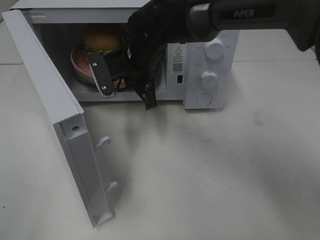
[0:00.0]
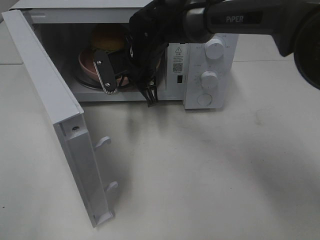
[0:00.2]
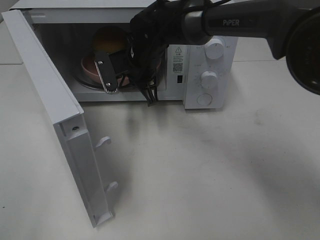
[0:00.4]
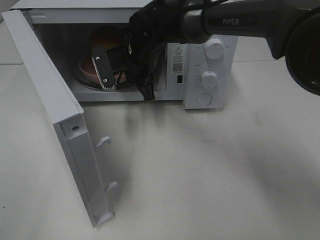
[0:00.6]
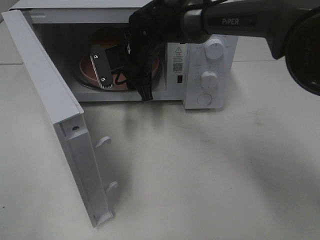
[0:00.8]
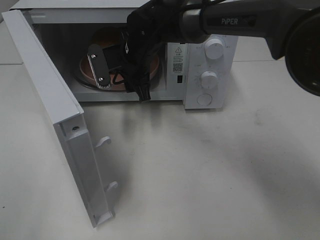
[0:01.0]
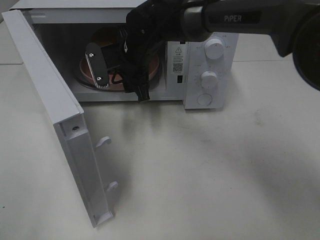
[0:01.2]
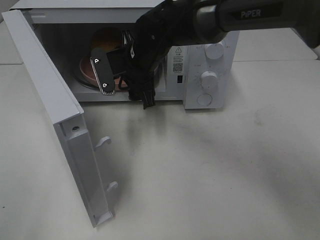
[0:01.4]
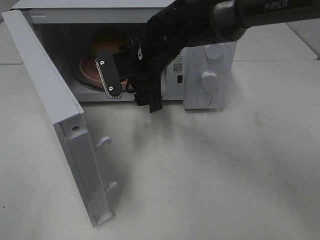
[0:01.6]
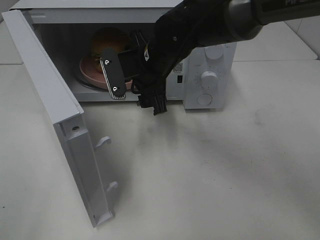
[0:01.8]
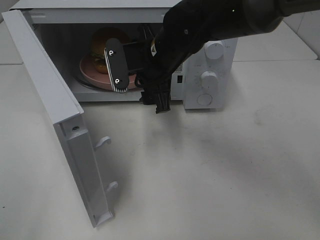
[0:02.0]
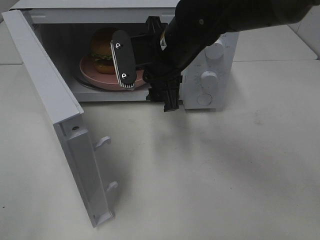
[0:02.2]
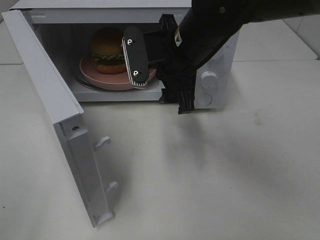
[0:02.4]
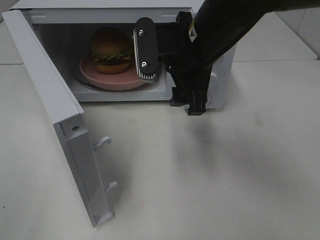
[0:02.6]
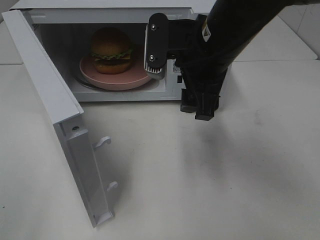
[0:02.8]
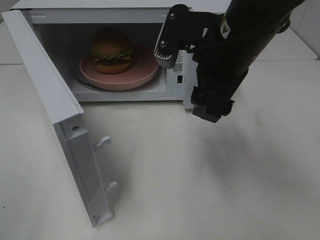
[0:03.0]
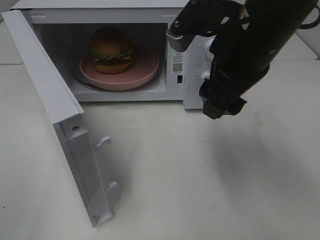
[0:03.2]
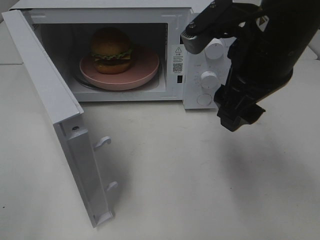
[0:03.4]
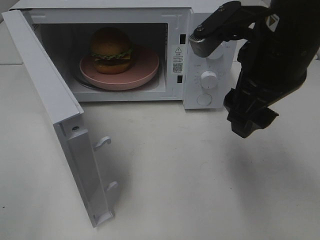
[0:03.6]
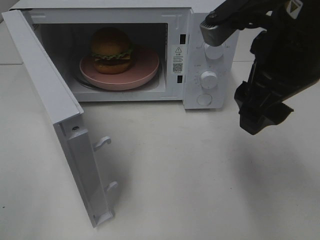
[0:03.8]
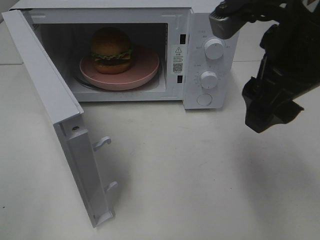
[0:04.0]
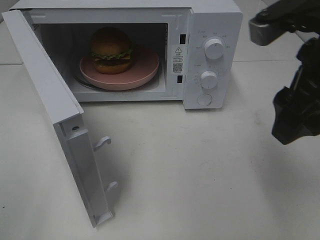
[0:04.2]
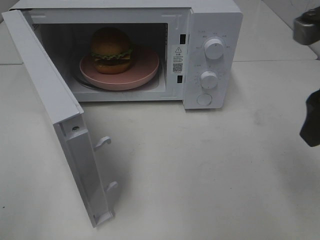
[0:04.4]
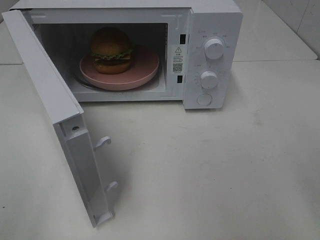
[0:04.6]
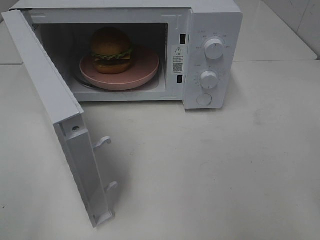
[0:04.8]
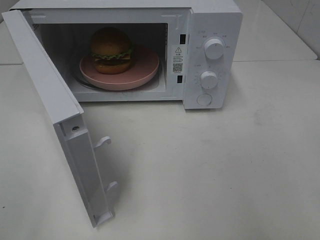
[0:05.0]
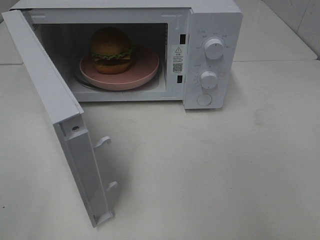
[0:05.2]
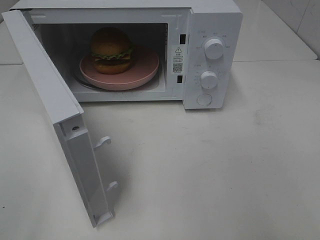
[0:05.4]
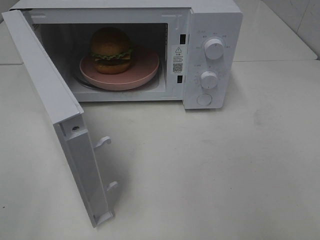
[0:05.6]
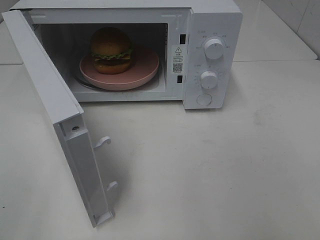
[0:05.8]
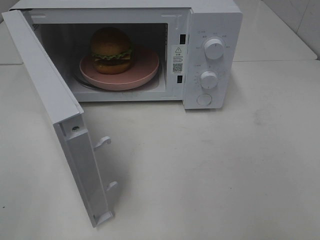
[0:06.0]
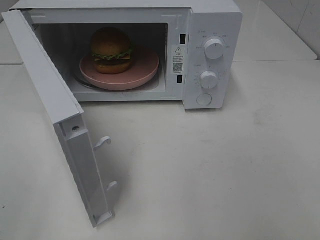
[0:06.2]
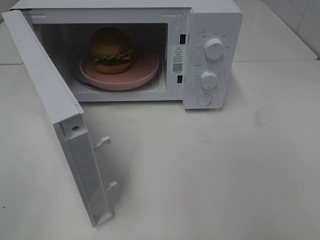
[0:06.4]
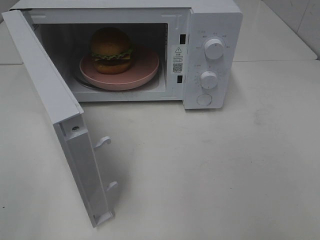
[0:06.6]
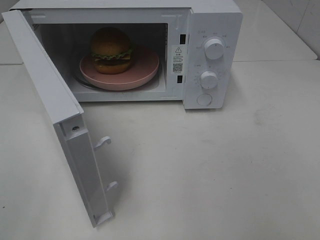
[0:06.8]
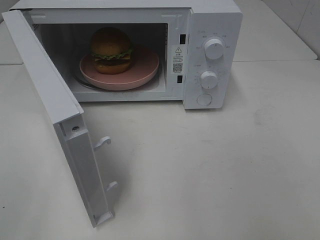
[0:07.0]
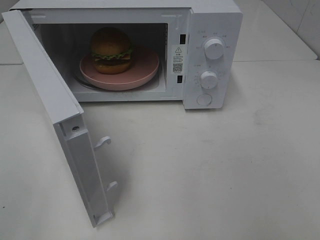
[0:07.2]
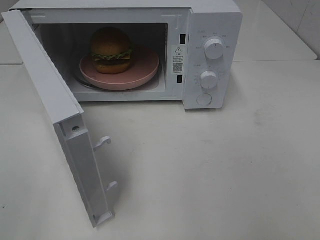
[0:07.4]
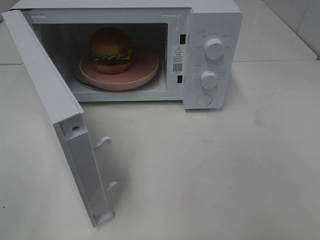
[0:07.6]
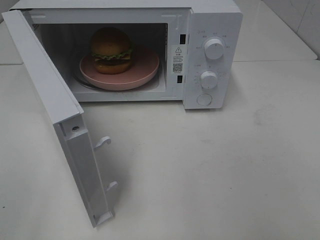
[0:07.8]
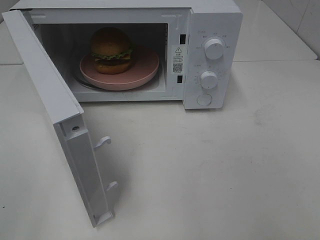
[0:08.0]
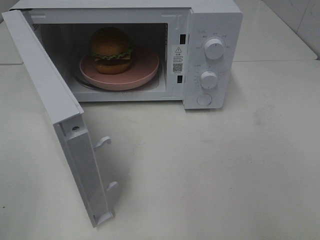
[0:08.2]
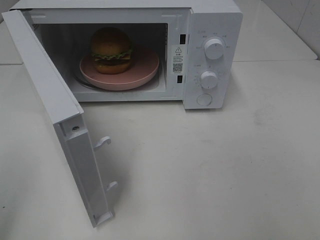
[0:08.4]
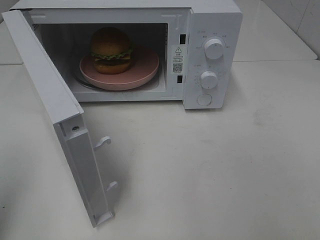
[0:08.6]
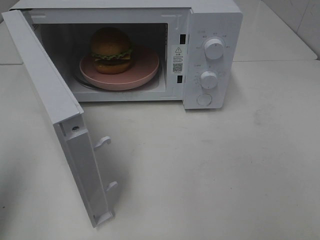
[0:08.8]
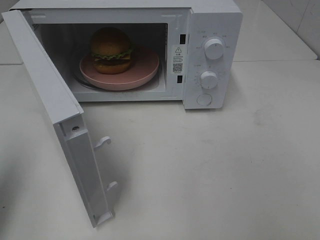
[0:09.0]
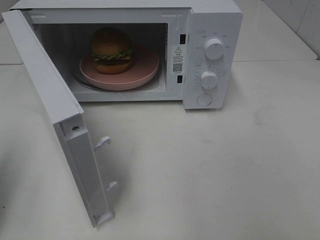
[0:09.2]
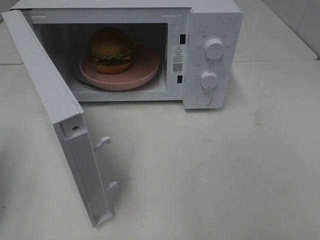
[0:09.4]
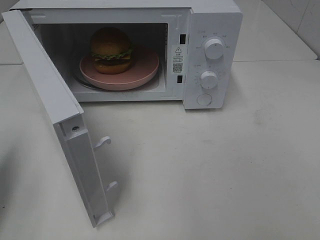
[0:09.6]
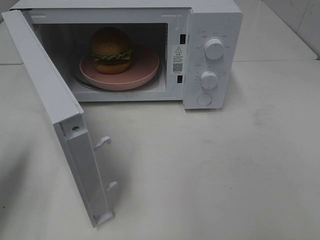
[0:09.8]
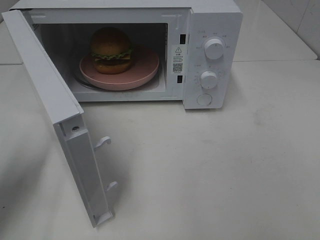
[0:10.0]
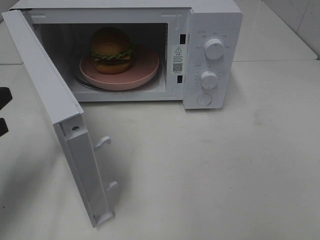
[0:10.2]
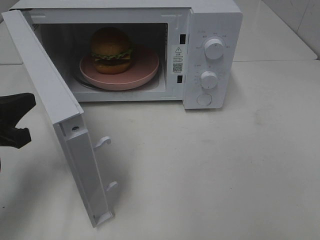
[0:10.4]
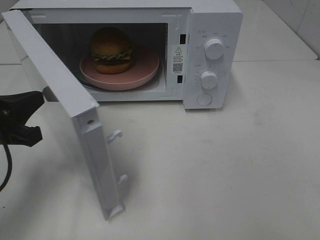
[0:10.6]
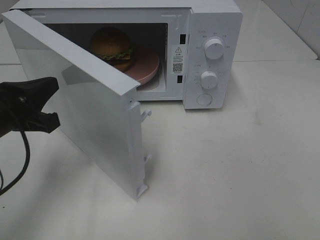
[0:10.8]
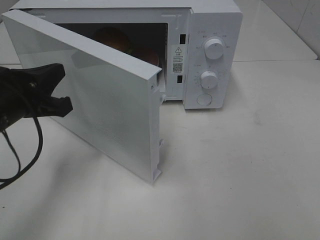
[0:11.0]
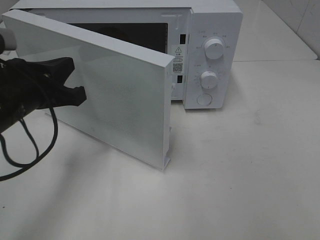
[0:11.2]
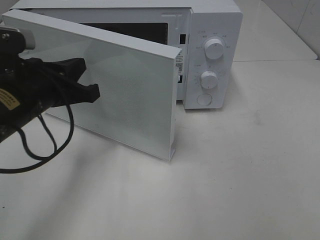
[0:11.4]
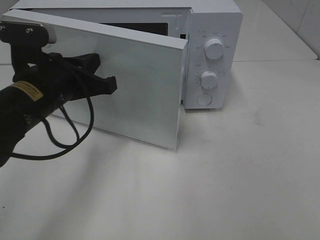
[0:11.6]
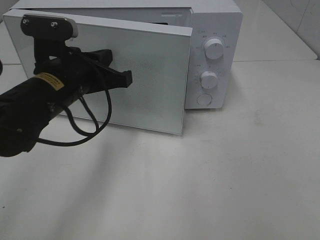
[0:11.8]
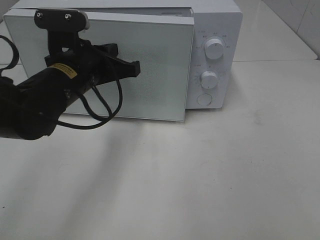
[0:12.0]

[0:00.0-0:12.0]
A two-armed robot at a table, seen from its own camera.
Task of the whole recording: Heat the burger.
0:00.0 to 0:01.6: The right gripper opens its fingers.
0:01.6 to 0:03.0: The right gripper travels backward, to the right and upward by approximately 15 cm.
0:03.0 to 0:04.4: The right gripper moves to the right and backward, some 15 cm.
0:04.4 to 0:06.0: The right gripper goes about 20 cm backward.
0:06.0 to 0:07.6: The two grippers keep their place.
0:07.6 to 0:09.0: The left gripper travels forward by some 15 cm, and closes its fingers.
0:09.0 to 0:10.4: The left gripper heads downward, forward and to the right, covering roughly 15 cm.
0:10.4 to 0:12.0: The left gripper heads to the right and forward, covering approximately 15 cm.

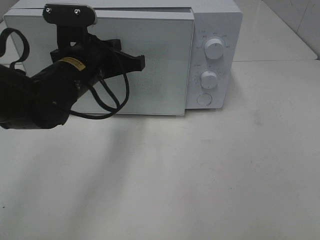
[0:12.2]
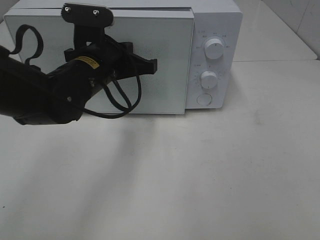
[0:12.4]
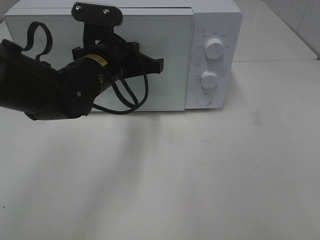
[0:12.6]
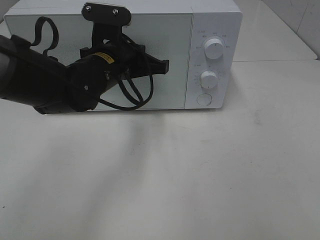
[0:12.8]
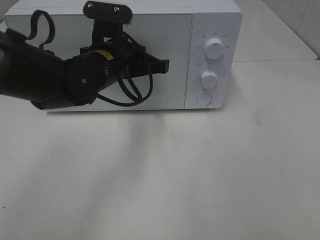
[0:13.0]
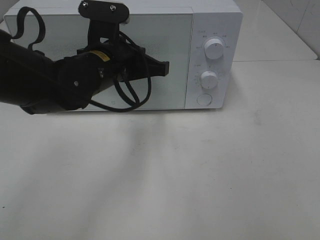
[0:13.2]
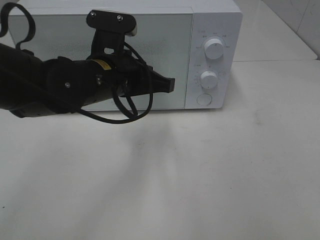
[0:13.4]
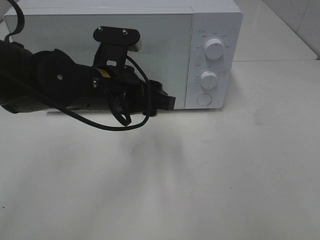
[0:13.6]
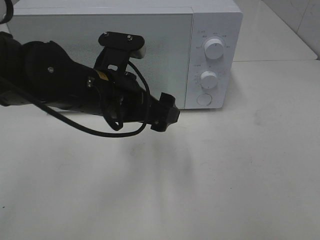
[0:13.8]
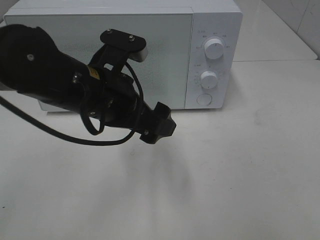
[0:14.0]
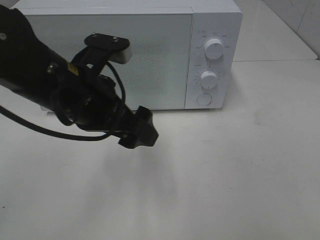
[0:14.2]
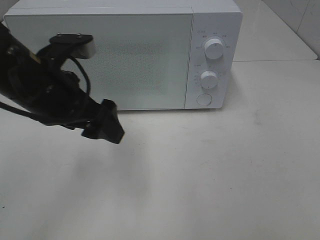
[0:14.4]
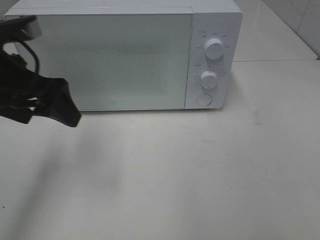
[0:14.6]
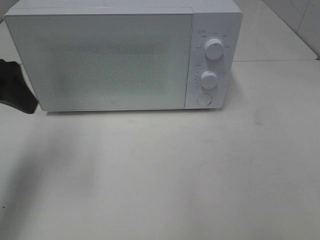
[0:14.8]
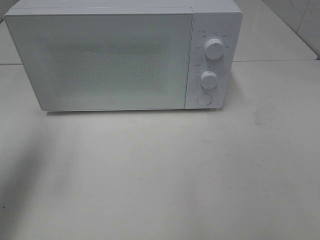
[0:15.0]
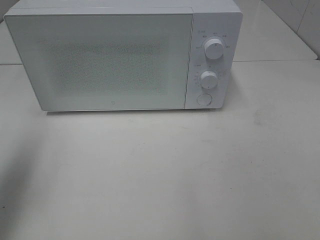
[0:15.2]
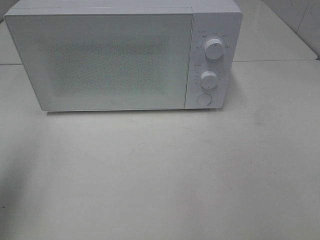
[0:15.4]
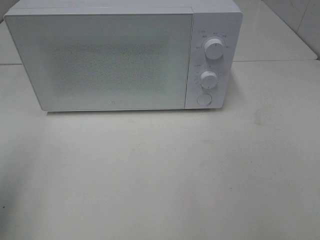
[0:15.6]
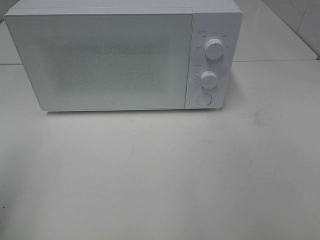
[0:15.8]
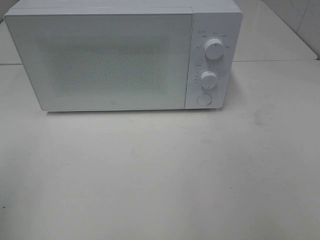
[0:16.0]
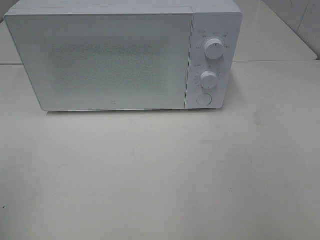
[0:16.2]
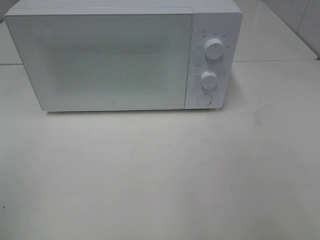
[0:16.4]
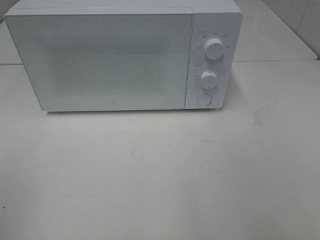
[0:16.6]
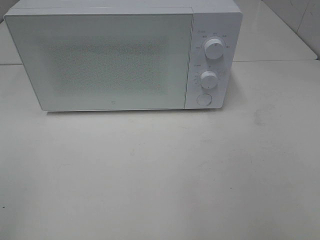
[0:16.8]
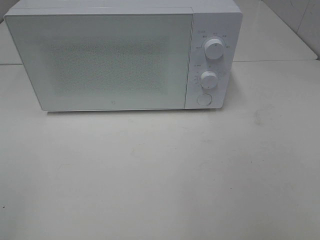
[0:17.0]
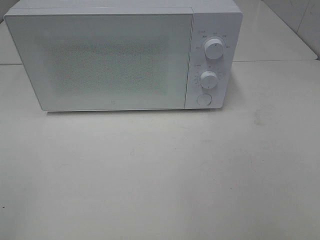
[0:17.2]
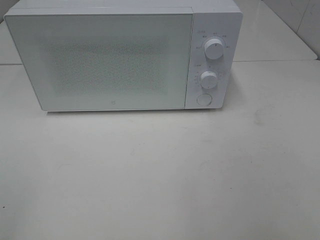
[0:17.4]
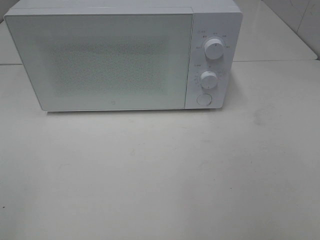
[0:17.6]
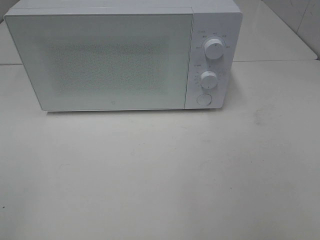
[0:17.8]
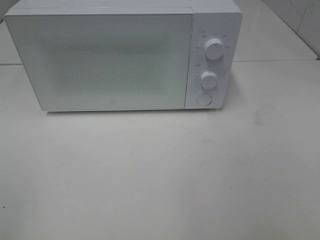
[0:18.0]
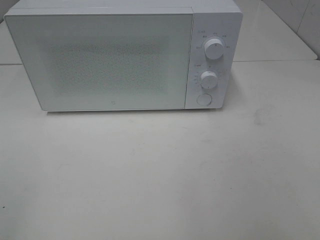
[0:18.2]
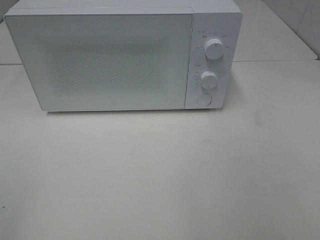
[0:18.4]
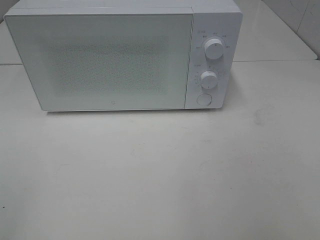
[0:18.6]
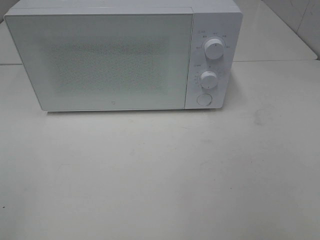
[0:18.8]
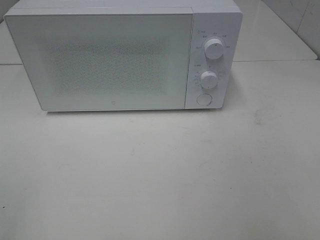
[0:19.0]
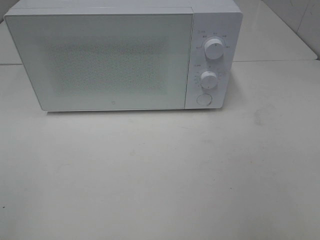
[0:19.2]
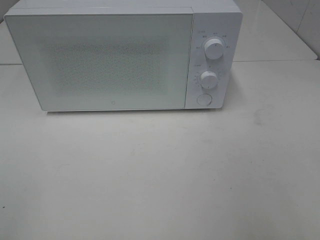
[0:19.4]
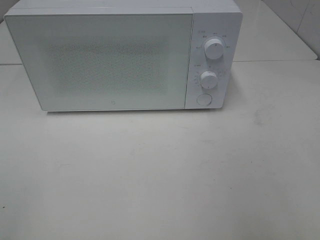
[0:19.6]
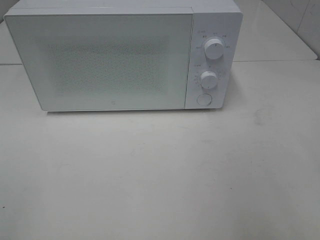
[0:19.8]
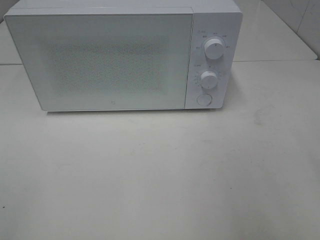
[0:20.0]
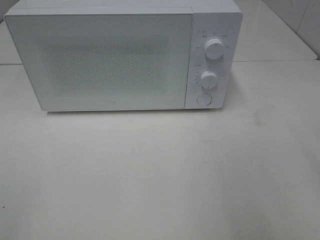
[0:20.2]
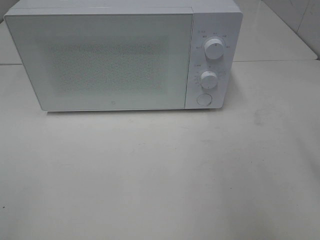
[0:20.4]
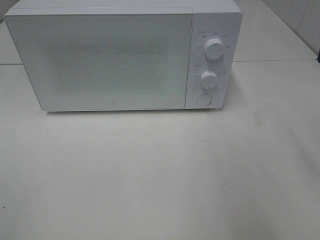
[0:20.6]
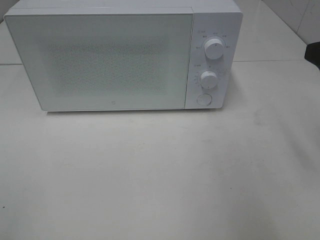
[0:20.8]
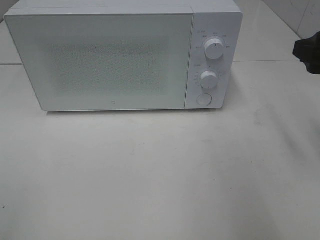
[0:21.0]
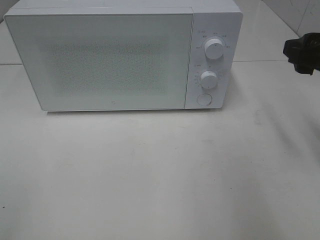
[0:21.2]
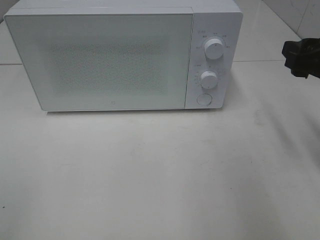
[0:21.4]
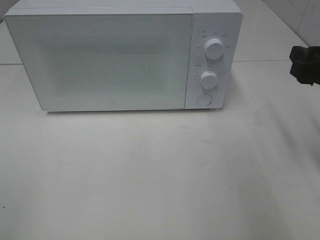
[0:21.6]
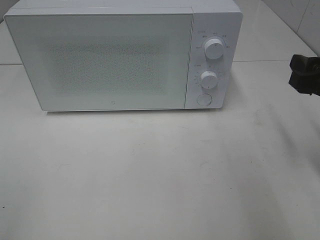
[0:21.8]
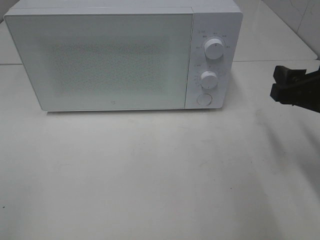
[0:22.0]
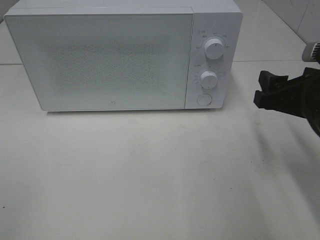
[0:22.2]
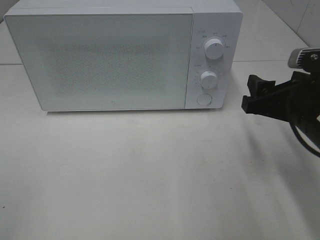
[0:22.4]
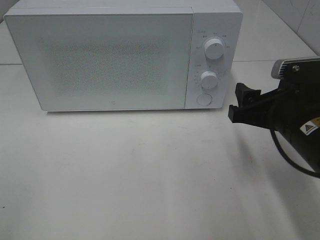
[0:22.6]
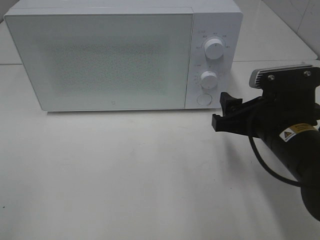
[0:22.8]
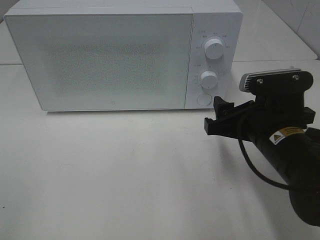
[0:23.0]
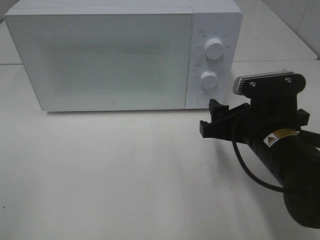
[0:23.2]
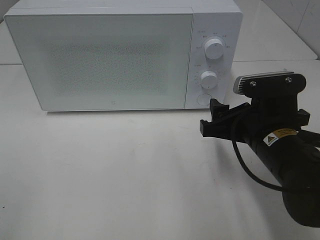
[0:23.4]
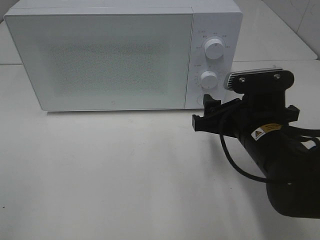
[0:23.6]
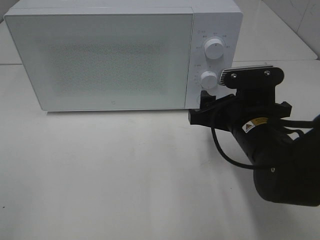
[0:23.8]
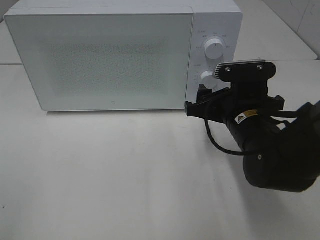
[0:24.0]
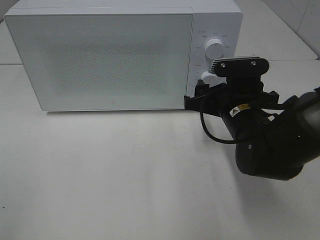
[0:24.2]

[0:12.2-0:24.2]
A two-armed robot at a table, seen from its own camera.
Task of the whole recording: Heat the burger.
0:12.2 to 0:13.8: The left gripper moves backward, roughly 5 cm, and opens up.
0:13.8 to 0:15.2: The left gripper heads to the left and upward, covering roughly 25 cm.
0:15.2 to 0:16.6: The left gripper goes approximately 15 cm backward.
0:19.8 to 0:21.2: The right gripper travels forward by approximately 15 cm.
0:21.2 to 0:22.6: The right gripper shifts about 10 cm downward and to the left.
0:22.6 to 0:24.2: The right gripper is displaced forward and to the left by some 10 cm.
